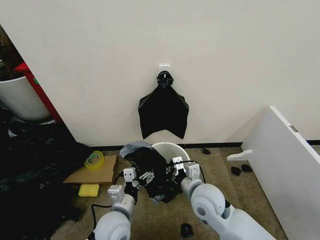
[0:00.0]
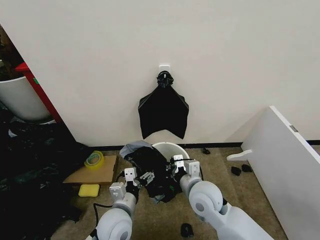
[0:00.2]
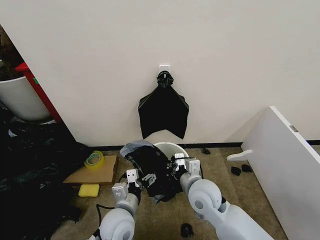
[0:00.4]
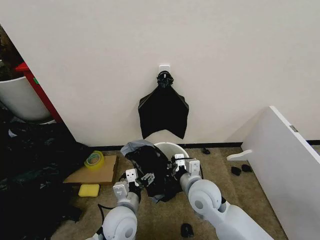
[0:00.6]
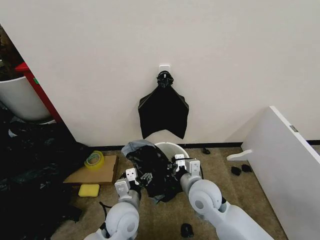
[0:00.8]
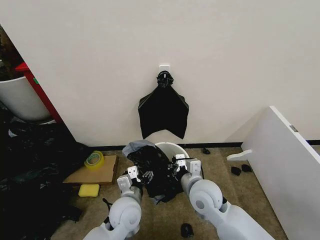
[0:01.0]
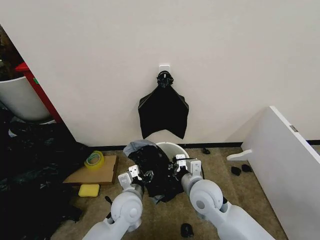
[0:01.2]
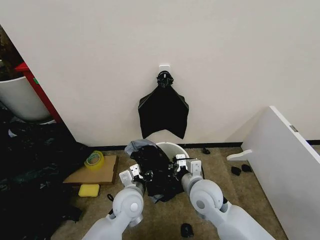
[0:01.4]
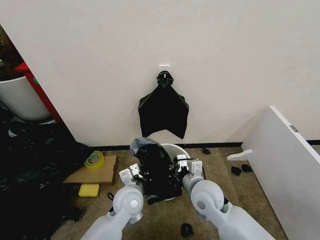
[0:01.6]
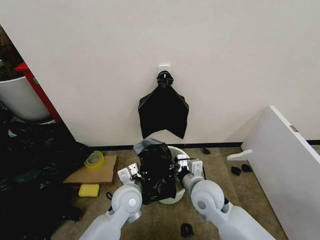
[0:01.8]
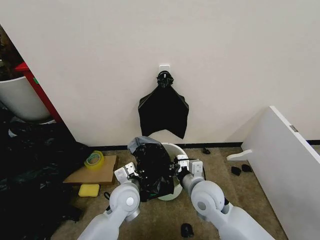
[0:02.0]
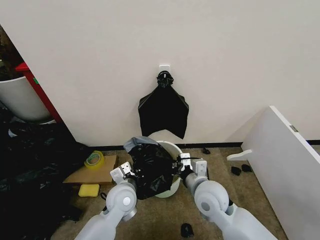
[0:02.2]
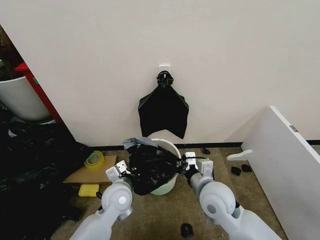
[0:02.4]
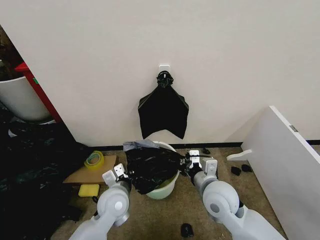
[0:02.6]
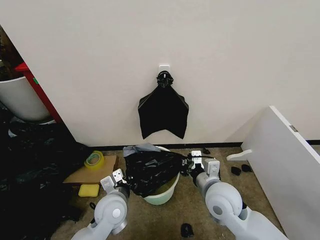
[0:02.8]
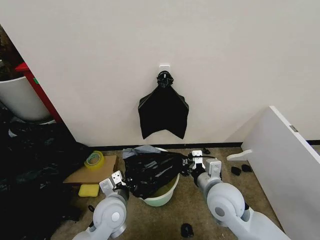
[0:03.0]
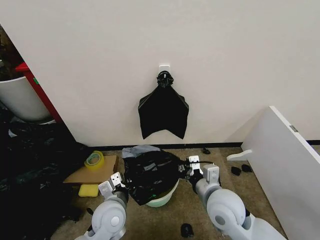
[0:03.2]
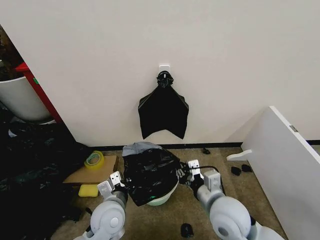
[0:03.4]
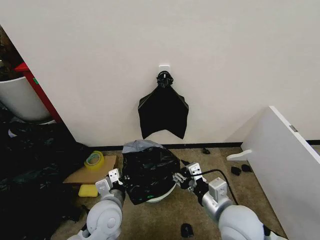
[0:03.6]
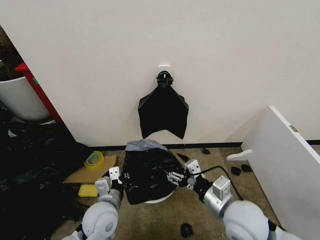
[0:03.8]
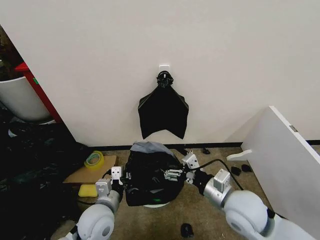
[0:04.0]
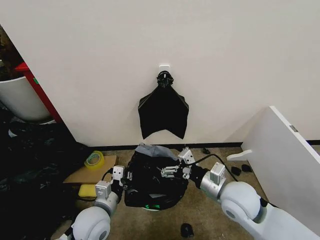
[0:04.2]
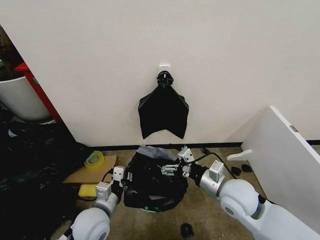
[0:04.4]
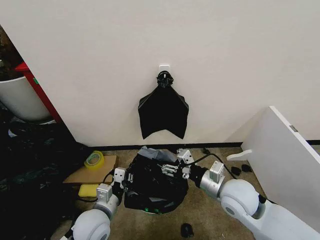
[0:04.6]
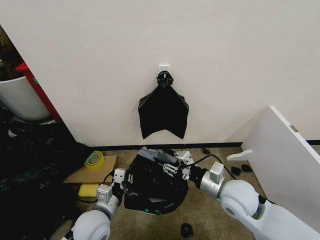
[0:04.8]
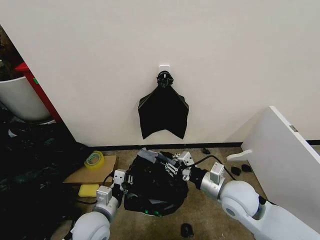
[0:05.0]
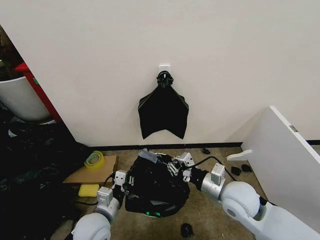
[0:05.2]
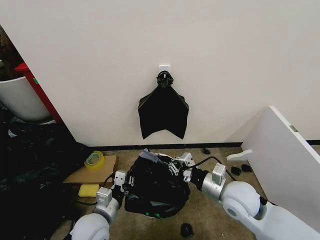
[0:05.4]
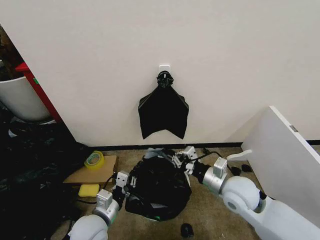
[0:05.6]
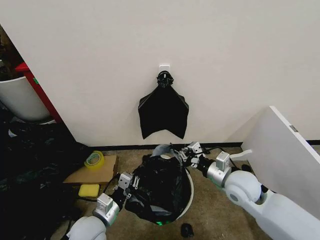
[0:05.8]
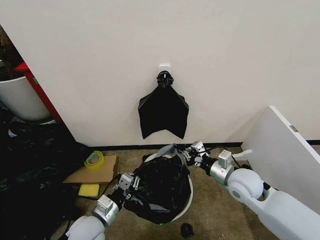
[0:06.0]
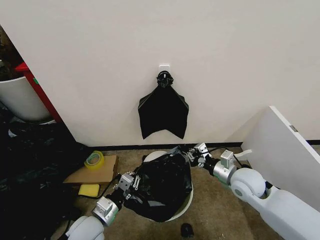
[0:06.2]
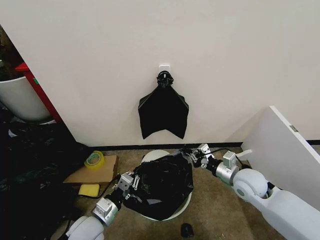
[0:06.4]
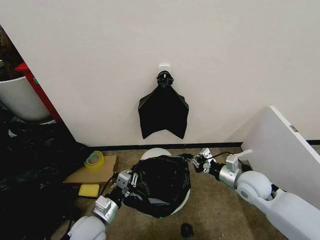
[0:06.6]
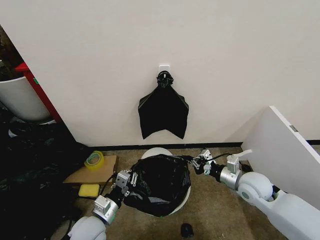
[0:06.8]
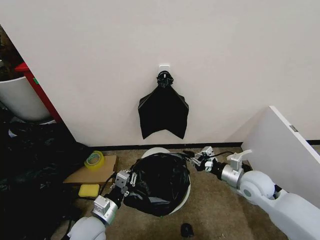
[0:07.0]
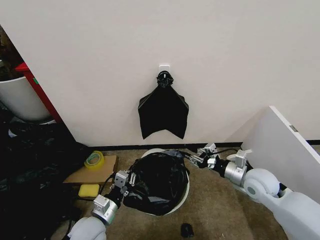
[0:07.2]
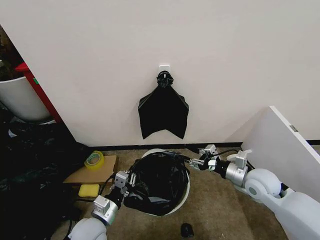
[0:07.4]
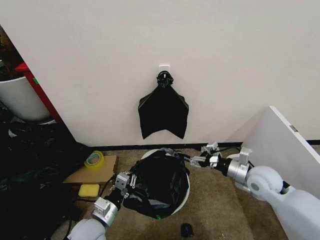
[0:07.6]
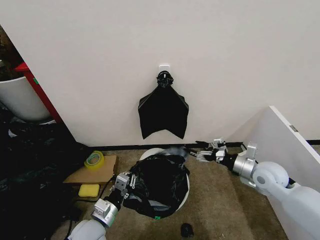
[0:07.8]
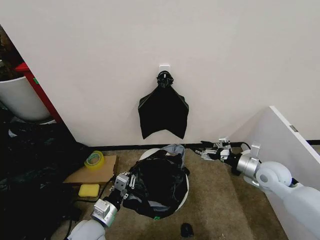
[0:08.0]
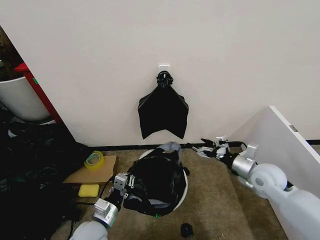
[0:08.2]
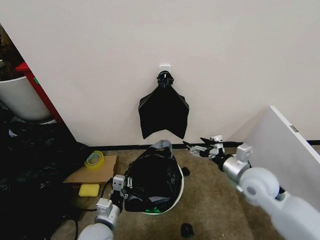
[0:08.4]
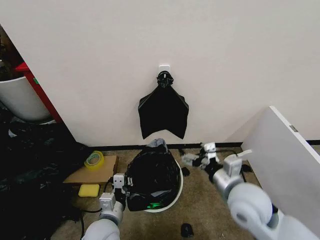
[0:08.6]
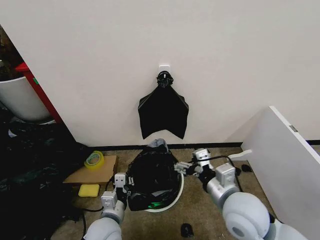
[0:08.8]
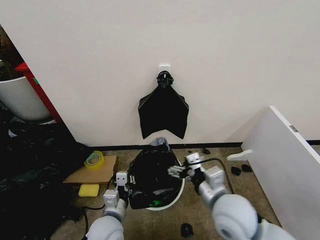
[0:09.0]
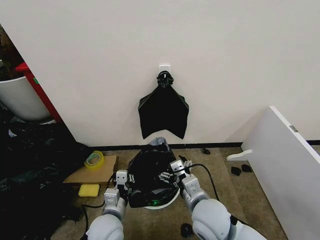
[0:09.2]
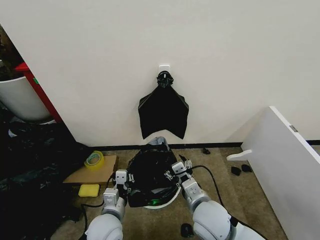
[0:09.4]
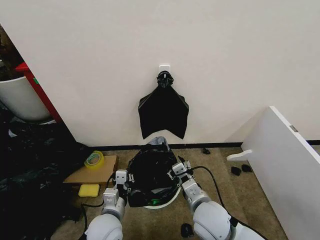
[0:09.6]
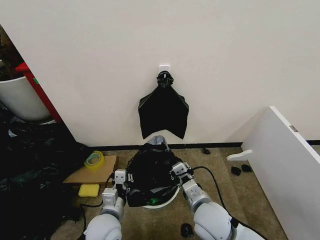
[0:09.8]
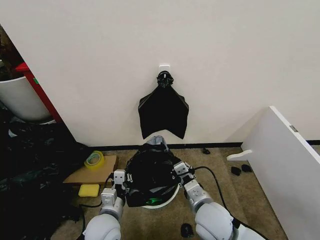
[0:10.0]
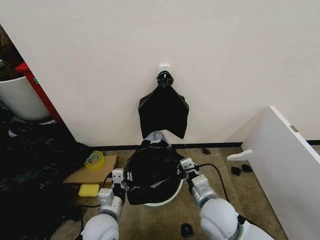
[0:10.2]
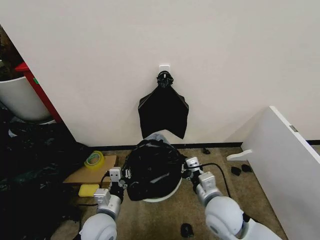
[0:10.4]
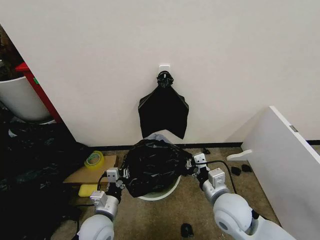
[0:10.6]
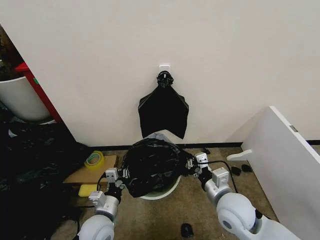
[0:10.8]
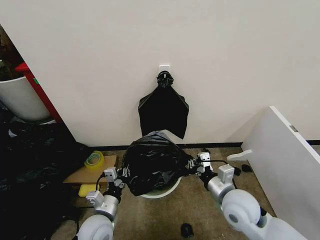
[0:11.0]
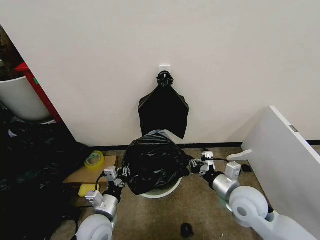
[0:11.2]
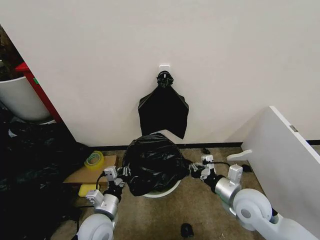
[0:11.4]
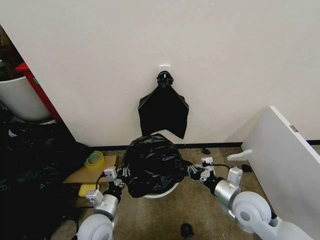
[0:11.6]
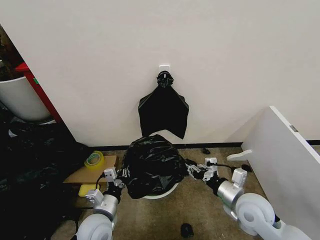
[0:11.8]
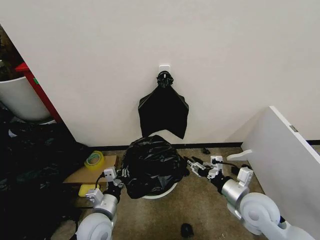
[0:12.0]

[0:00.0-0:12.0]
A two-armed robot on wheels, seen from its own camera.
Task of the whole recording: Place the garbage bag over the trash bin.
0:00.0 to 0:01.6: The left gripper travels forward by roughly 10 cm, and closes its fingers.
0:01.6 to 0:03.0: The left gripper is displaced to the left by some 5 cm. Meanwhile the right gripper changes place by approximately 5 cm.
0:03.0 to 0:04.4: The right gripper opens its fingers. Meanwhile the left gripper moves approximately 5 cm.
0:04.4 to 0:06.0: The right gripper shifts by approximately 5 cm, and closes up.
0:06.0 to 0:07.6: The right gripper moves to the right, about 5 cm, and opens up.
0:07.6 to 0:09.0: The left gripper shifts some 5 cm to the right. Meanwhile the right gripper travels to the left and backward by approximately 20 cm.
0:09.0 to 0:10.4: The right gripper goes about 5 cm downward, and closes up.
0:10.4 to 0:12.0: The right gripper is displaced to the right by about 10 cm, and opens its fingers.

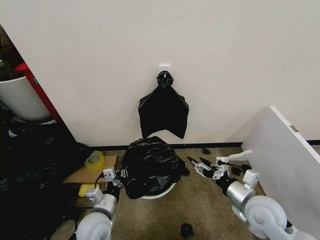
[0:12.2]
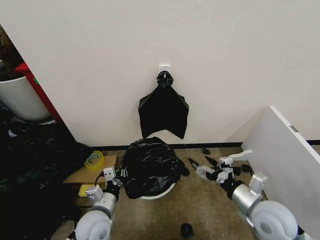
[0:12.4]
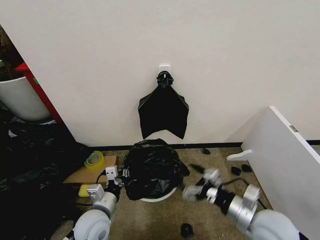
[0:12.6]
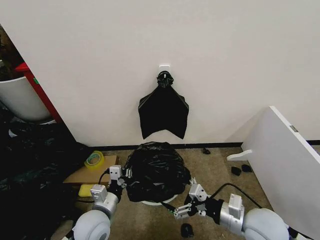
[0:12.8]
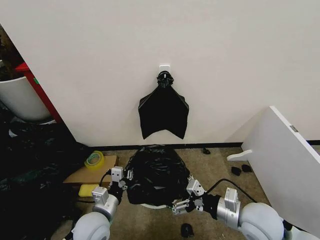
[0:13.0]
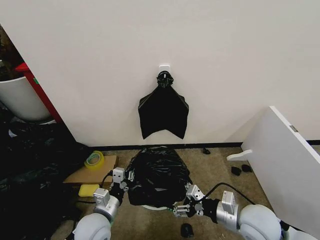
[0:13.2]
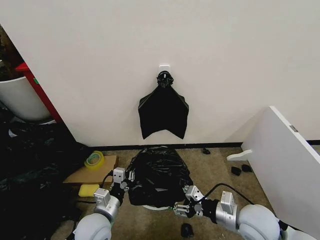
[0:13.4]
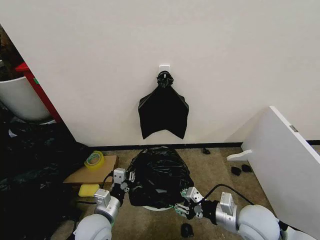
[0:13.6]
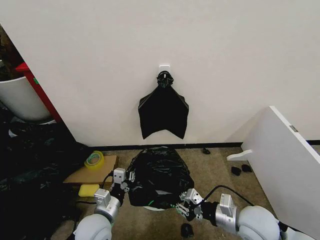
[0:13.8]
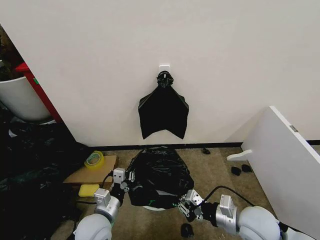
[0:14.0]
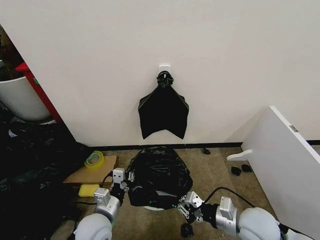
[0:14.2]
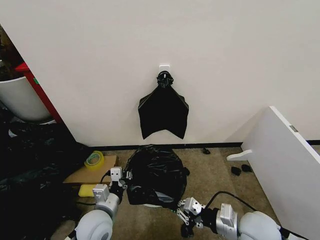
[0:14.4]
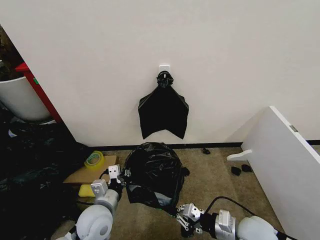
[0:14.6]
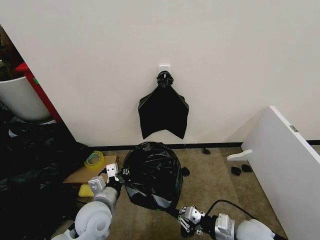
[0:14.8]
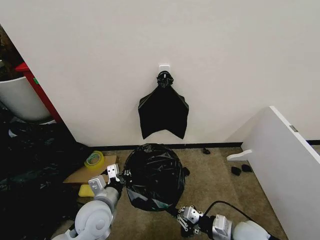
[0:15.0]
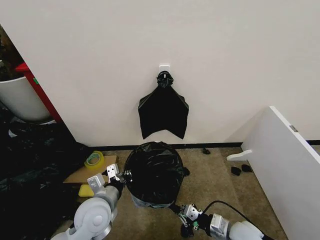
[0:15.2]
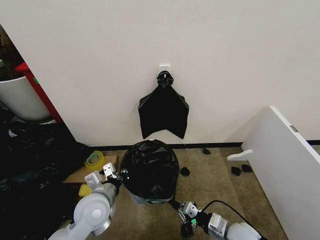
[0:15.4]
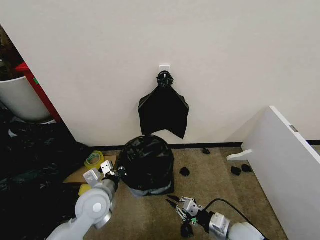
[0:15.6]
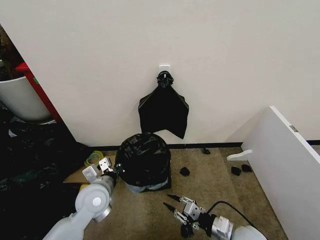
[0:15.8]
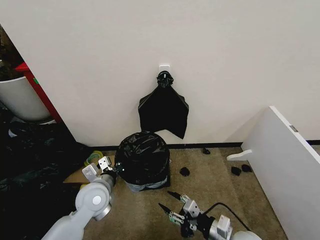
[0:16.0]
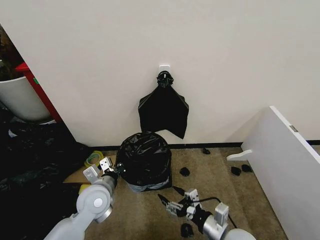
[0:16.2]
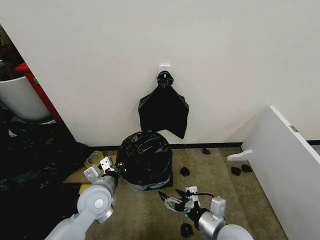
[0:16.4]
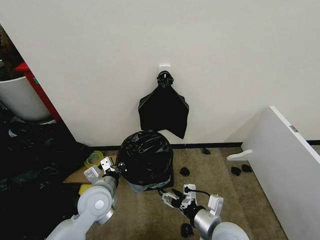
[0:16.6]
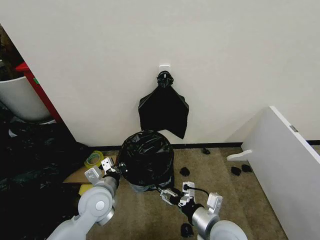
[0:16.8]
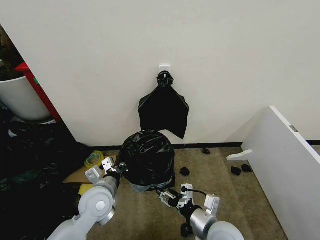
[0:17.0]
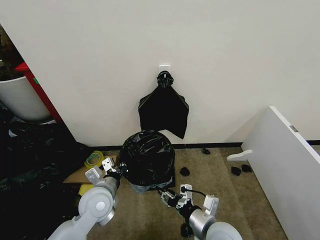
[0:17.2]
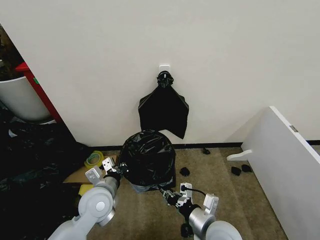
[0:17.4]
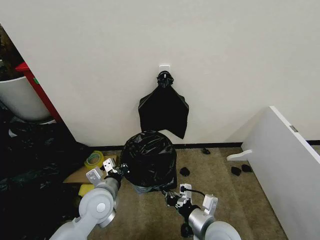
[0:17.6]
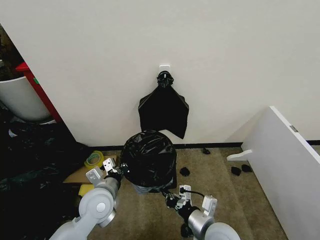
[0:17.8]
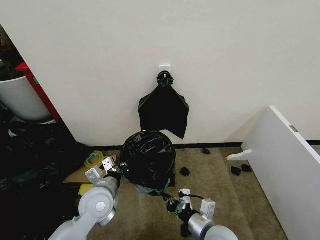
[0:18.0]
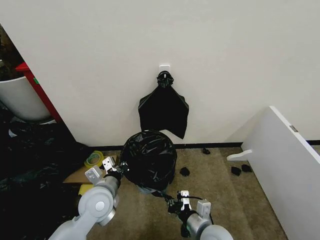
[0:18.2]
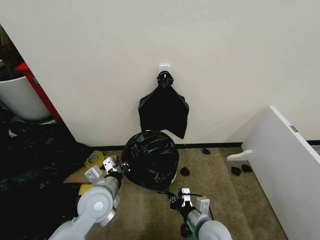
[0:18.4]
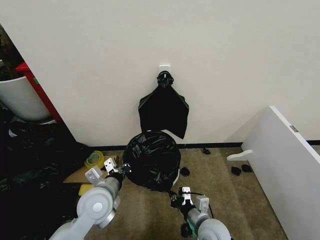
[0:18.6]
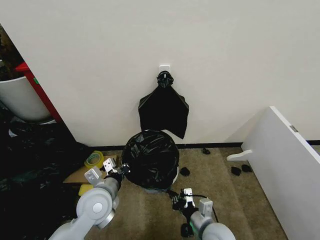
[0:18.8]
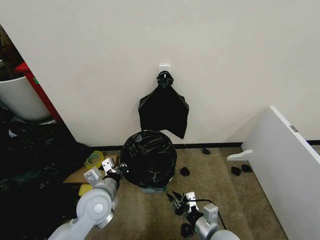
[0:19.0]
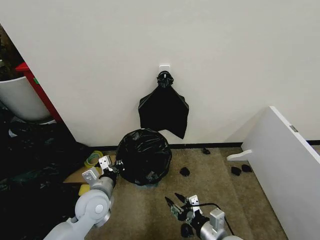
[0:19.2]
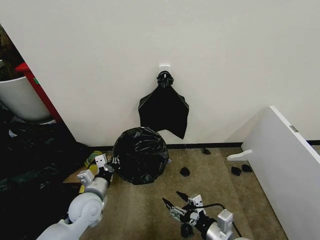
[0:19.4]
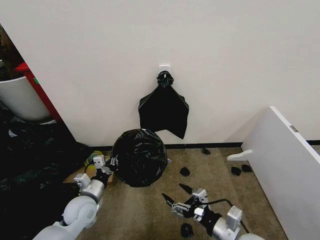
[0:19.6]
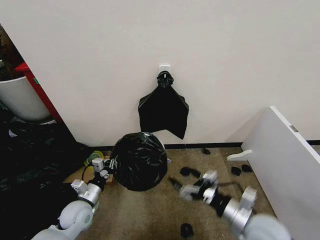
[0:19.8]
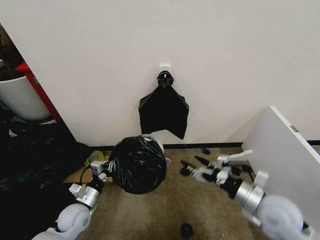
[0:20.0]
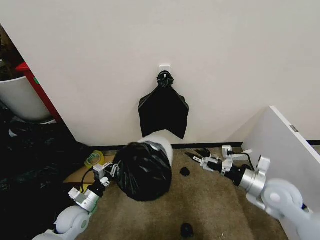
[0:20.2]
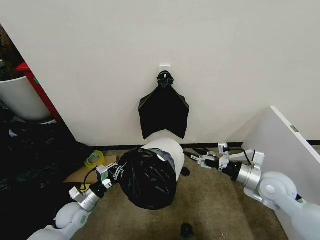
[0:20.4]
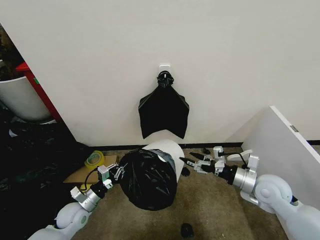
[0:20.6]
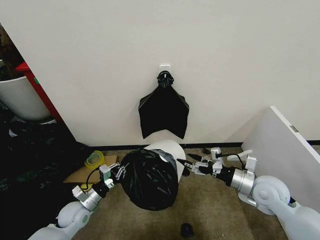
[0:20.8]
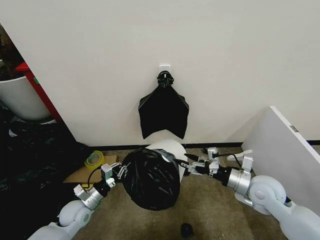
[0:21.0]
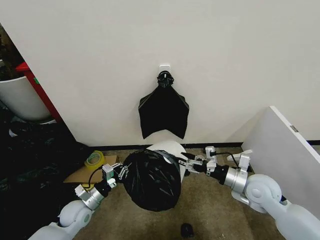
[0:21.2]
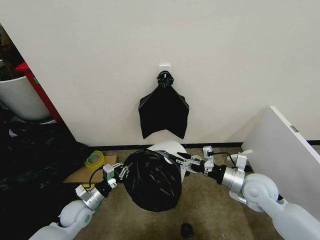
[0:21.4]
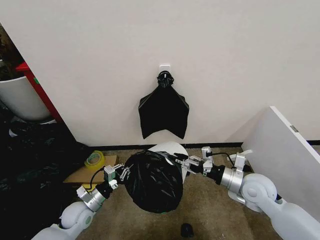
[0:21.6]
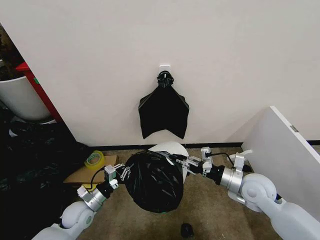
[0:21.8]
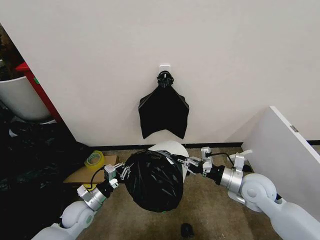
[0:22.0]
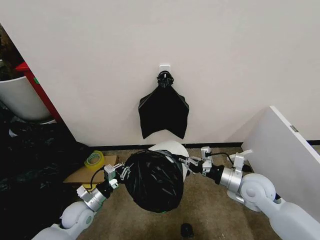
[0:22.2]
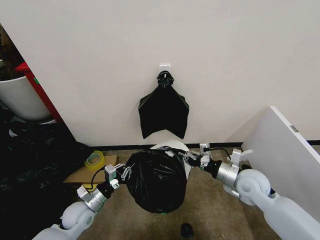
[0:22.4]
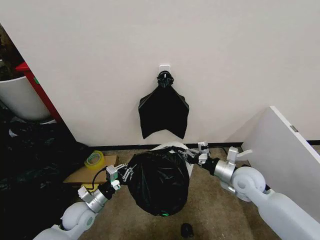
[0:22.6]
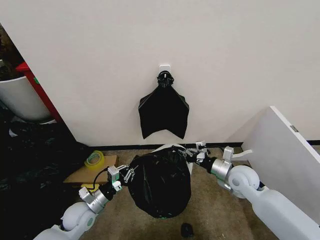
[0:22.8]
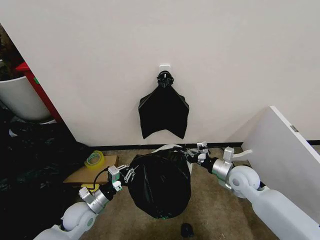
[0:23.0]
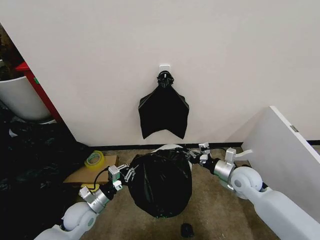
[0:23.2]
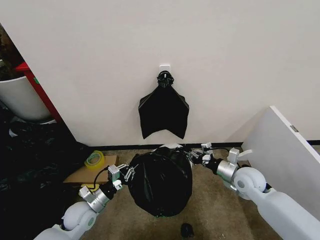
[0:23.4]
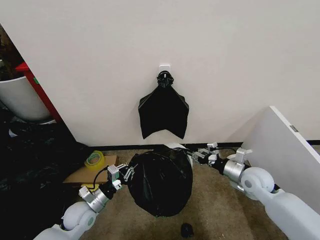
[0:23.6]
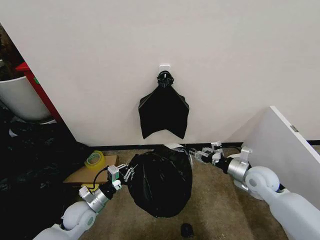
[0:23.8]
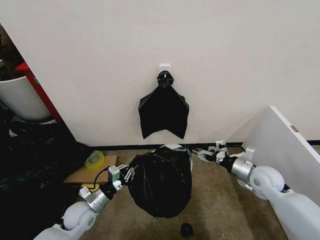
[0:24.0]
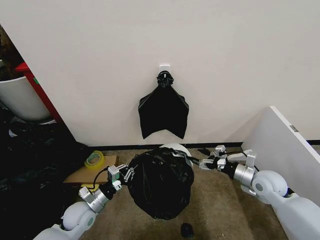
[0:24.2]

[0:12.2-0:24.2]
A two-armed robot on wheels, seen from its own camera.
Task of the whole recording: Place the garbage bag over the trash bin.
0:12.2 to 0:13.8: The right gripper closes.
0:13.8 to 0:15.2: The left gripper heads upward, covering approximately 5 cm. Meanwhile the right gripper goes some 10 cm downward.
0:15.2 to 0:16.6: The right gripper goes roughly 10 cm upward and to the left, and opens.
0:16.6 to 0:18.2: The right gripper shifts approximately 5 cm downward, and closes its fingers.
0:18.2 to 0:19.8: The left gripper travels downward and to the left by about 15 cm. Meanwhile the right gripper moves to the right and upward, approximately 15 cm, and opens its fingers.
0:19.8 to 0:21.2: The right gripper heads forward, covering approximately 10 cm.
0:21.2 to 0:22.6: The right gripper closes up.
0:22.6 to 0:24.2: The right gripper moves to the right, roughly 10 cm, and opens its fingers.
